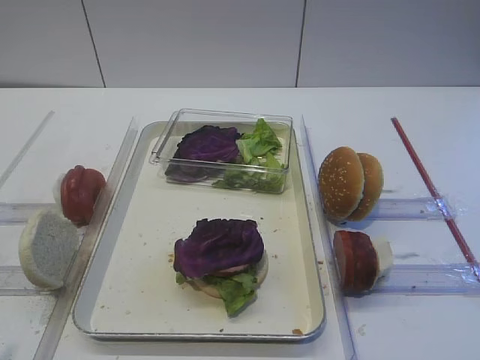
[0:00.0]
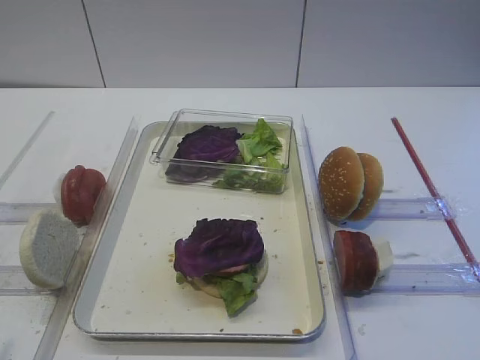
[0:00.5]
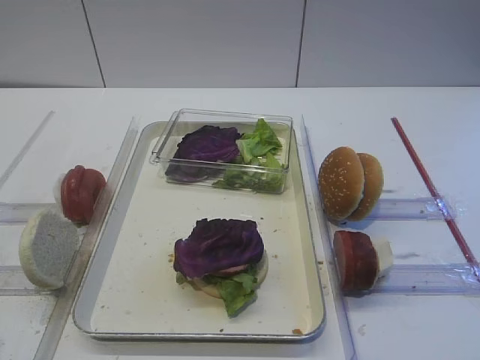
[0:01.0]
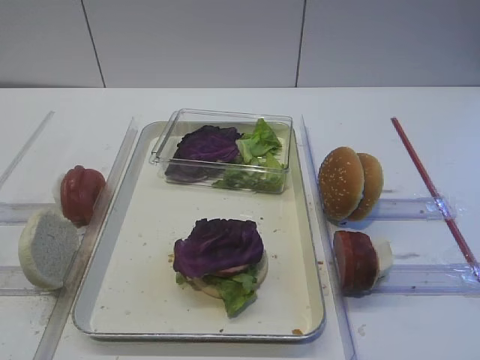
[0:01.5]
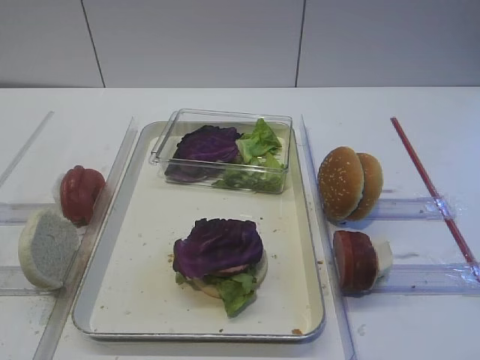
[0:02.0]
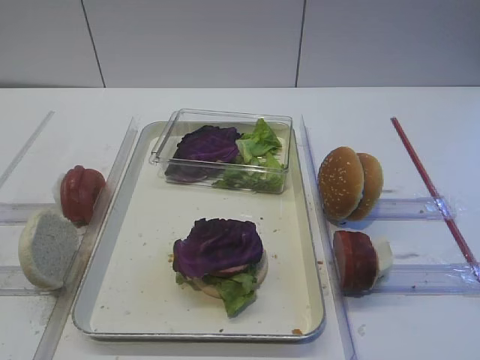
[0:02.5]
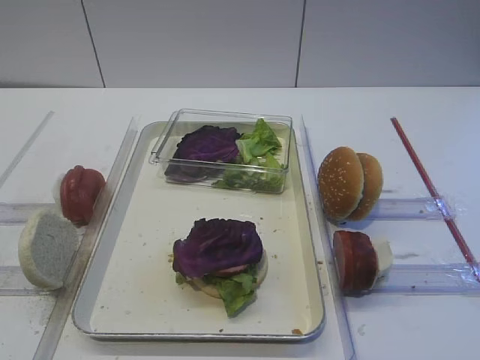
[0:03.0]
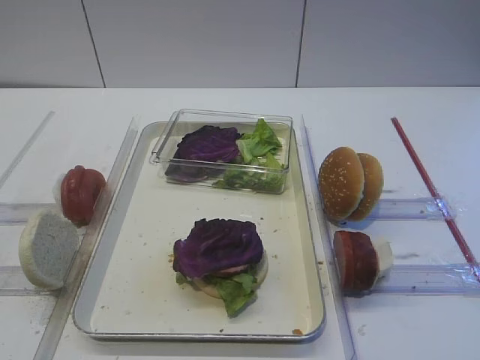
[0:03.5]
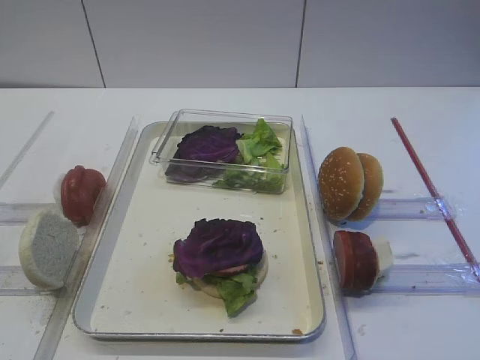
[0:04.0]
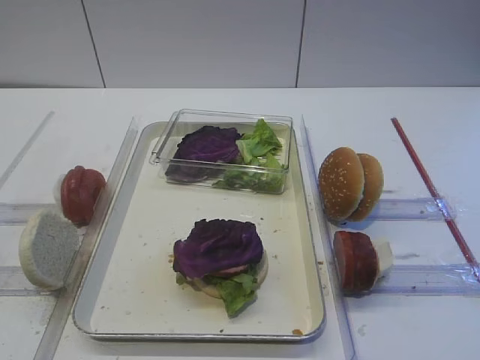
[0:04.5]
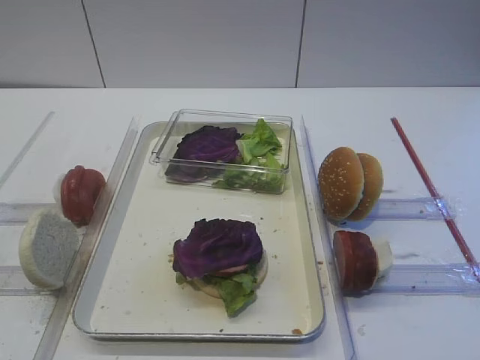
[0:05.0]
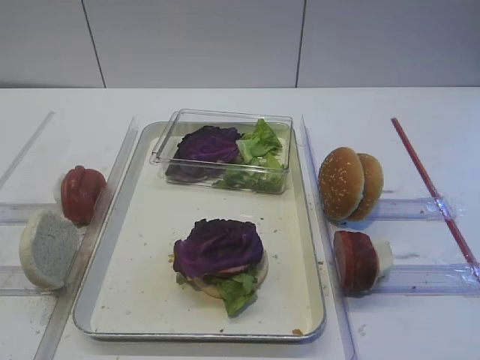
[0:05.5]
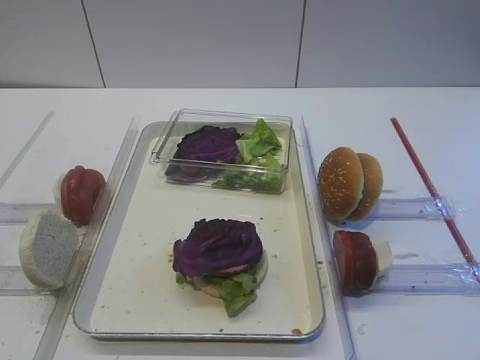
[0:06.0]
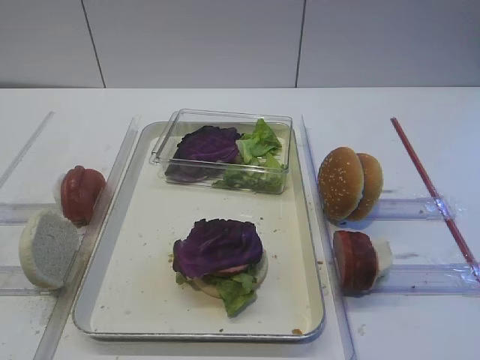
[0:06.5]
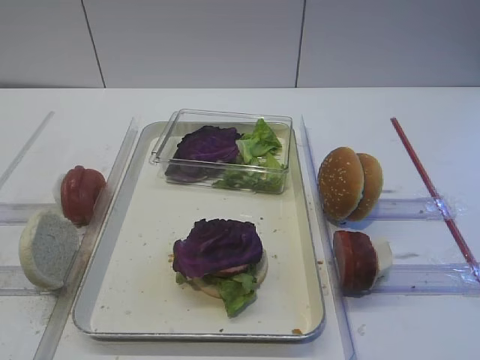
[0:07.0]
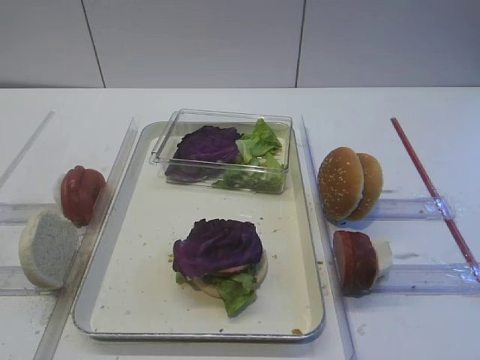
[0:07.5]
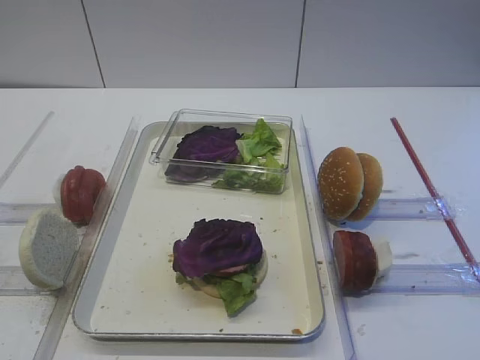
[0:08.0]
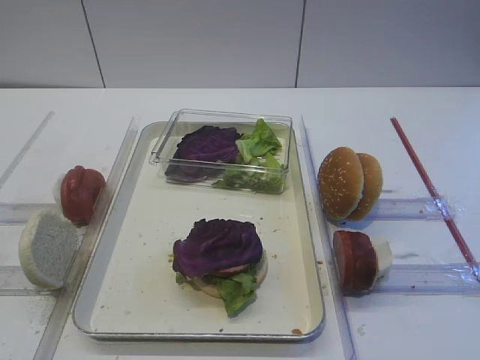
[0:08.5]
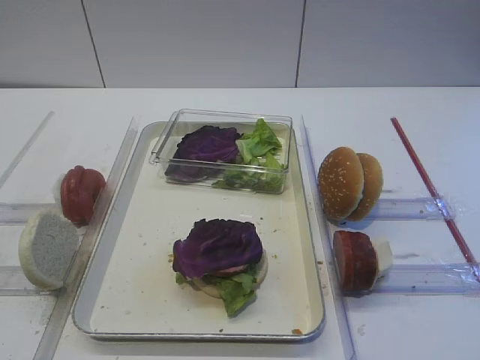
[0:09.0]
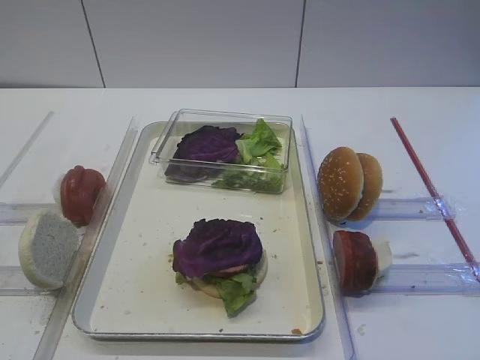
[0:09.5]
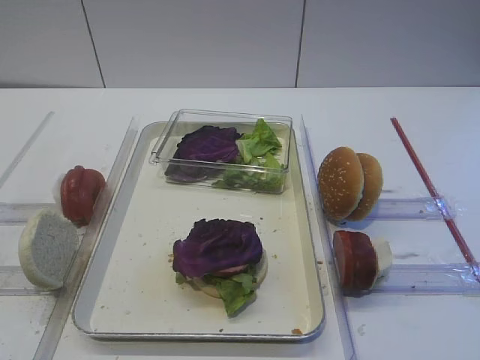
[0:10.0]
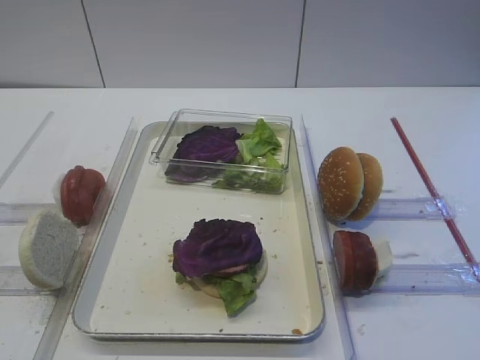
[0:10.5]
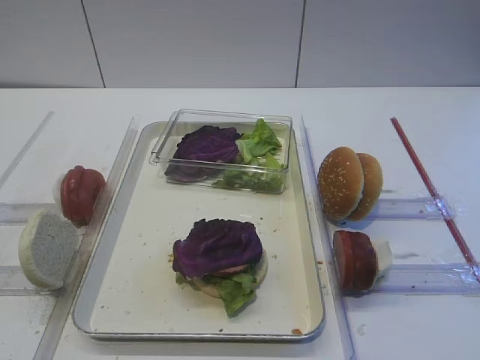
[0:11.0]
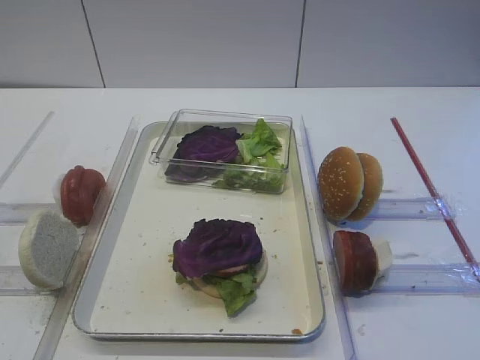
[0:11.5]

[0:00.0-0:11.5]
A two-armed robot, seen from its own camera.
0:02.0 to 0:11.5: Neither gripper changes place.

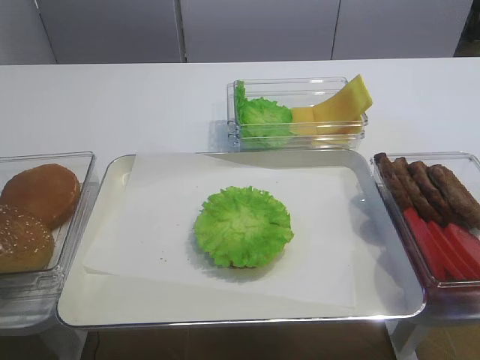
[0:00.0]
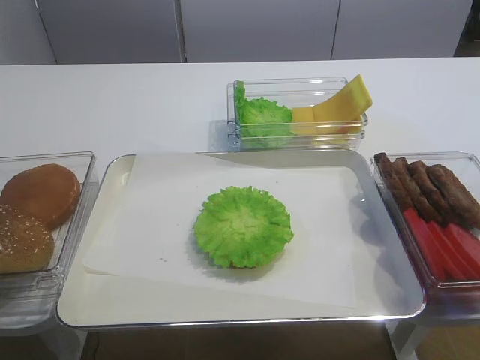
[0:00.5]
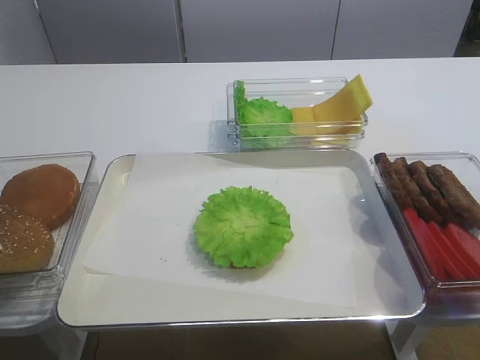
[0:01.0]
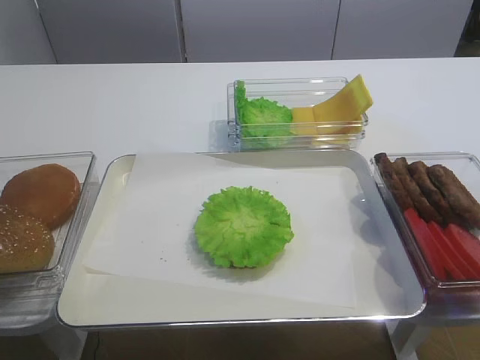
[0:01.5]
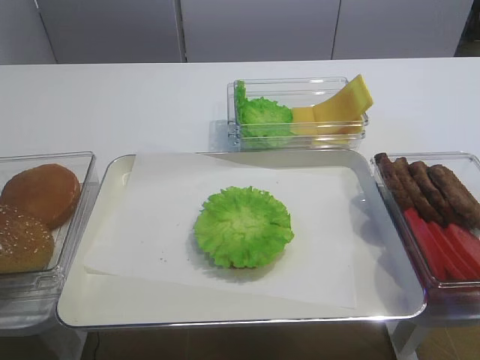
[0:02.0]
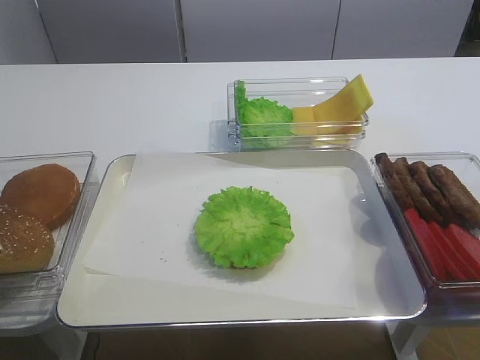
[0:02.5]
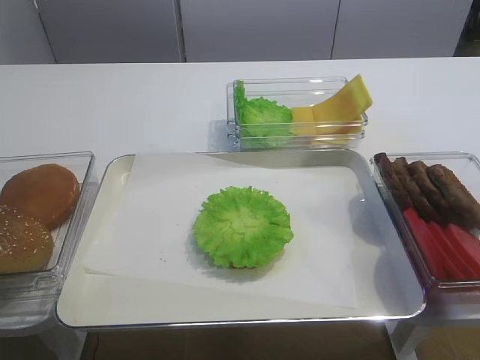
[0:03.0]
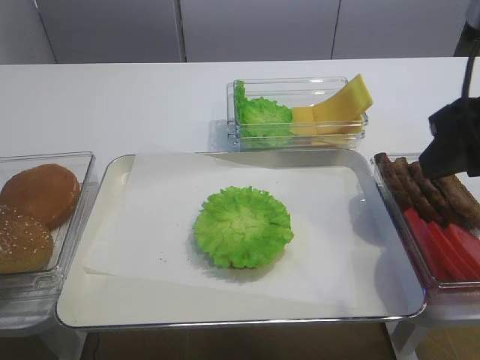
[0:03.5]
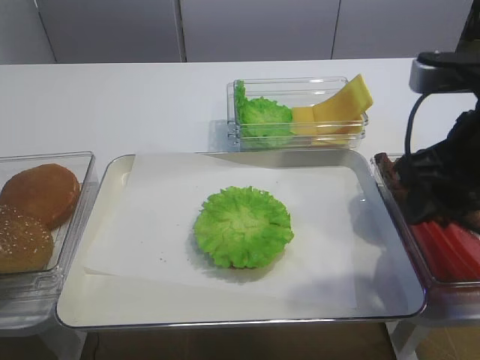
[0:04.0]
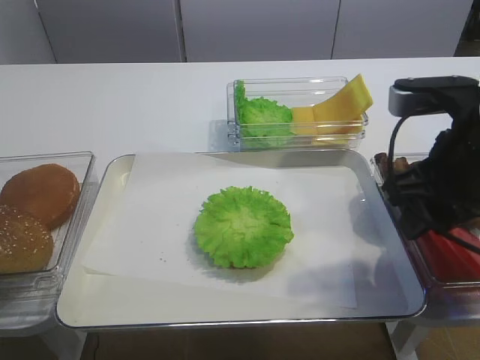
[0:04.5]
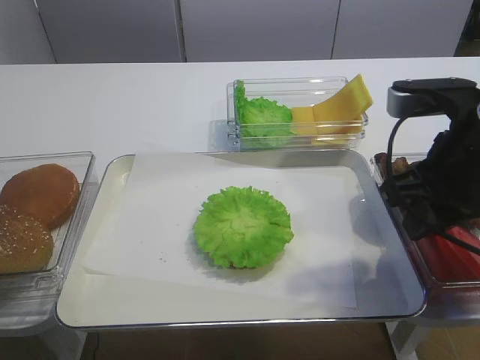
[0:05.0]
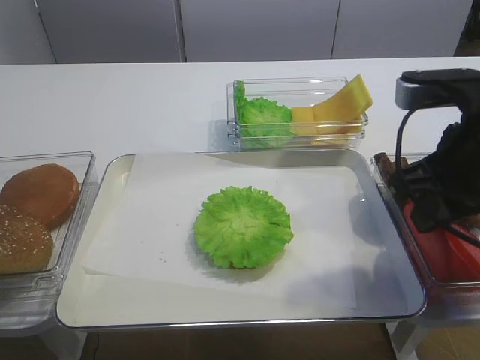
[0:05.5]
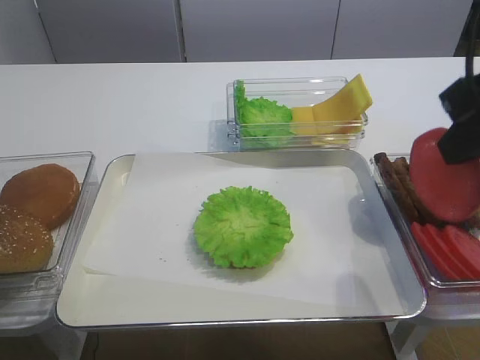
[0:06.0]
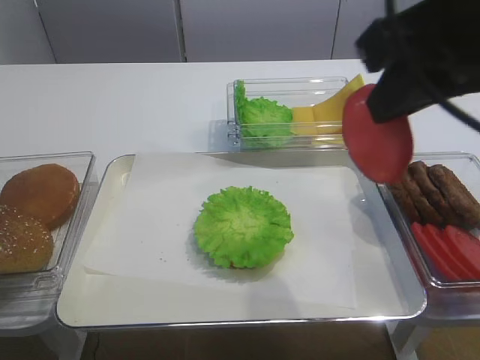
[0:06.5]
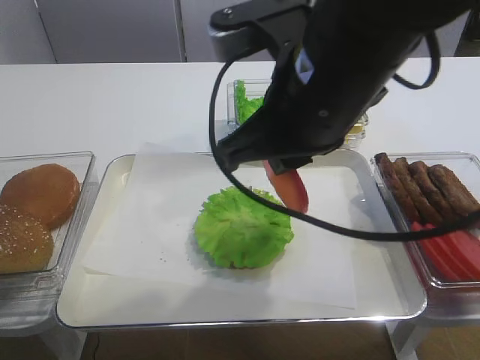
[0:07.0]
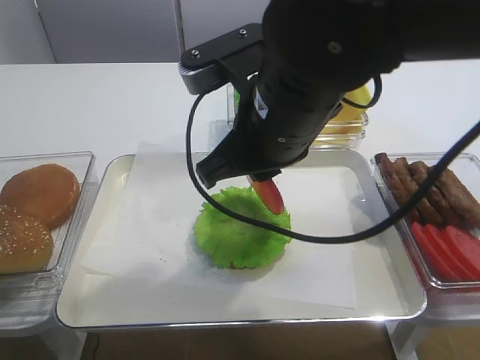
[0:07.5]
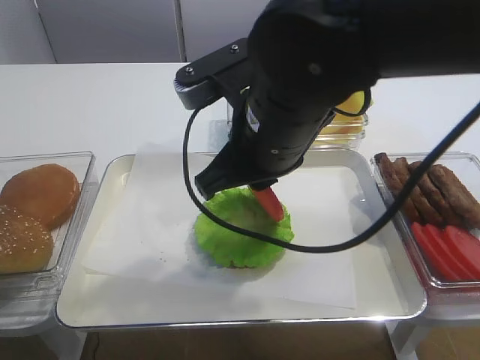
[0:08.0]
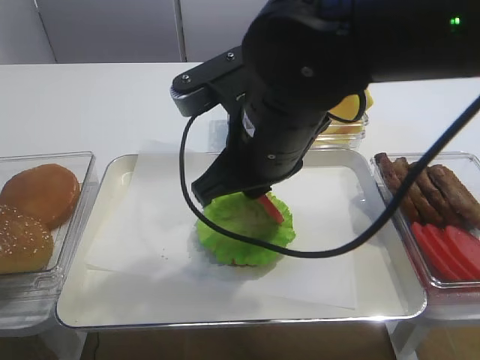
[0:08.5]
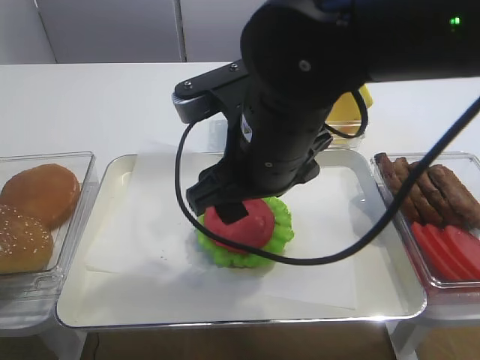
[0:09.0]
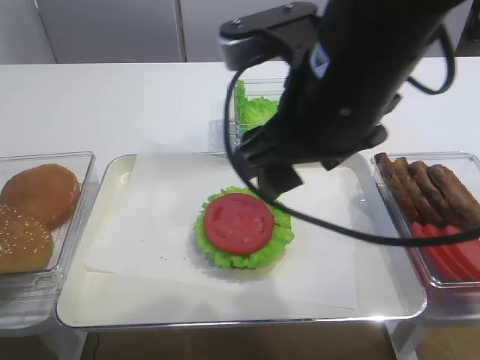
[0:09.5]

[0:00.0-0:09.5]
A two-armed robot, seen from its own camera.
Step, 0:00.0 to 0:05.5: Pick up the tomato slice with the right gripper.
Step, 0:06.0 to 0:08.5: Place the tomato slice on the lettuce leaf with the right gripper.
0:02.0 to 0:04.0: The right gripper travels forward by approximately 20 cm.
0:04.0 to 0:05.5: The right gripper closes its fingers.
0:05.5 to 0:07.5: The right gripper is displaced to the left by roughly 15 cm.
0:07.5 to 0:09.5: The right gripper changes place by some 5 cm, and opens.

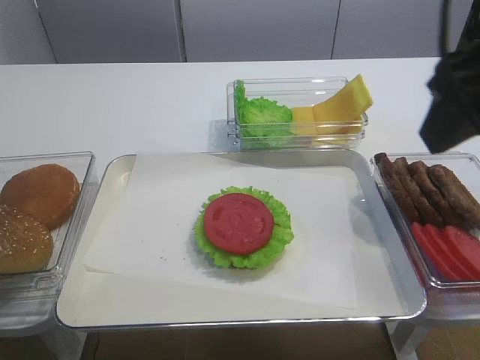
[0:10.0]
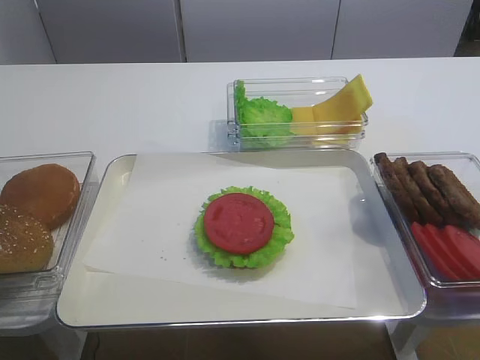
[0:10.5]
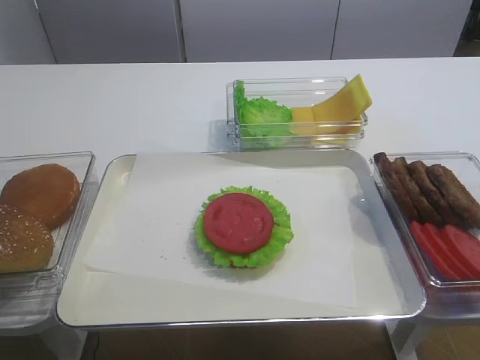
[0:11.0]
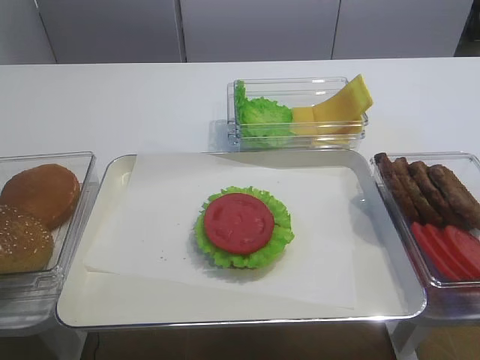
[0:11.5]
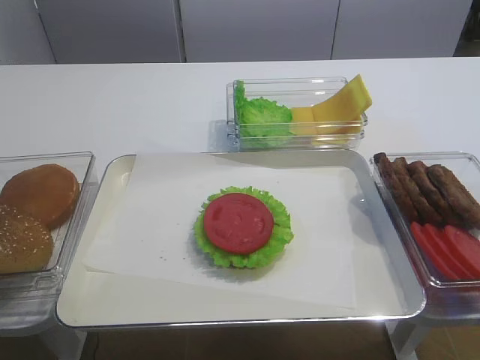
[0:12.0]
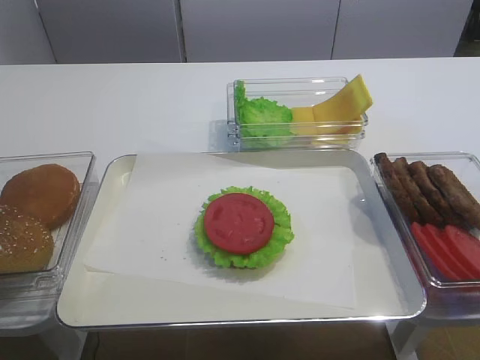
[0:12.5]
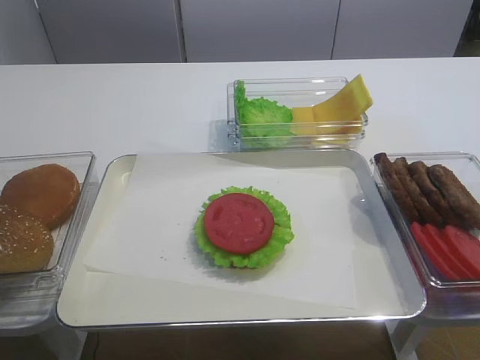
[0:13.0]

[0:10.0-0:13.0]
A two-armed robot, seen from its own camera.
0:10.0 to 0:11.5: The right gripper shifts roughly 20 cm backward, to the right and downward.
